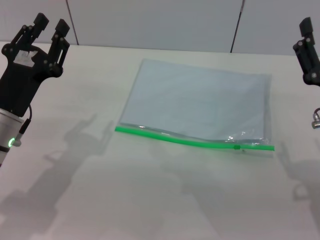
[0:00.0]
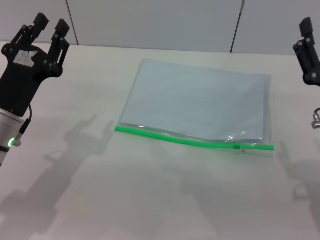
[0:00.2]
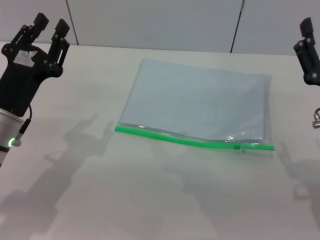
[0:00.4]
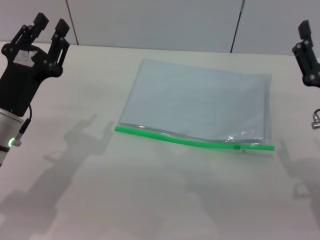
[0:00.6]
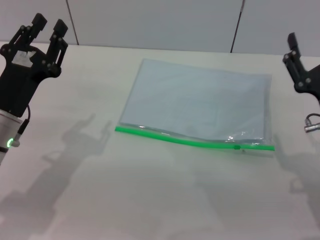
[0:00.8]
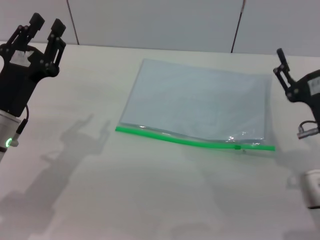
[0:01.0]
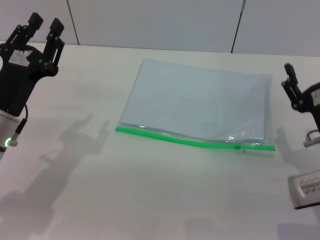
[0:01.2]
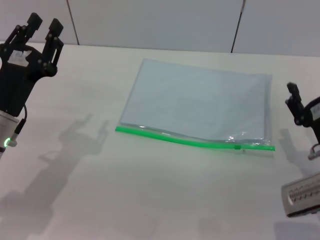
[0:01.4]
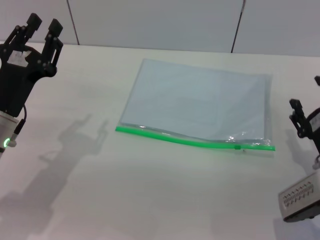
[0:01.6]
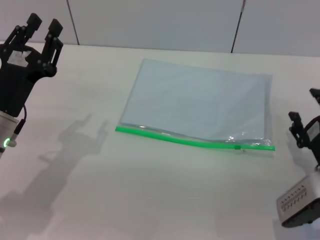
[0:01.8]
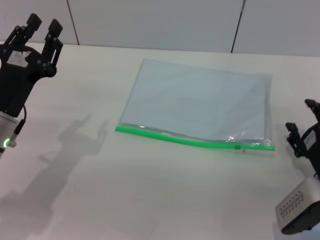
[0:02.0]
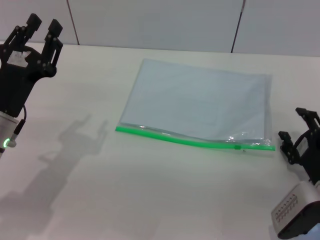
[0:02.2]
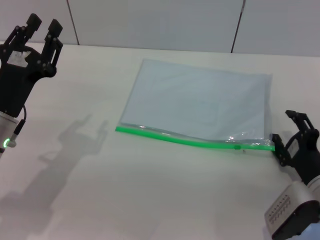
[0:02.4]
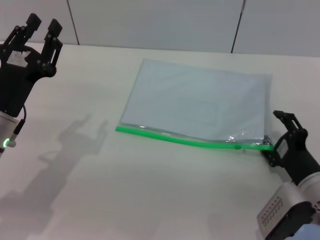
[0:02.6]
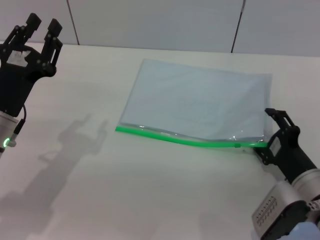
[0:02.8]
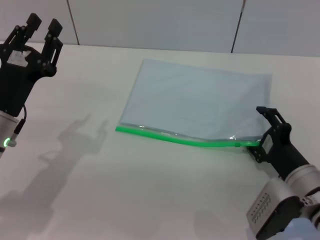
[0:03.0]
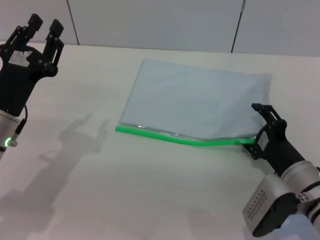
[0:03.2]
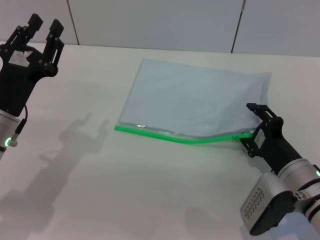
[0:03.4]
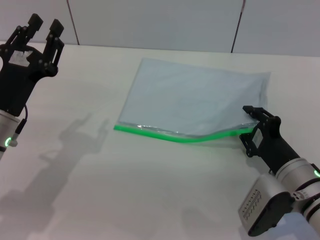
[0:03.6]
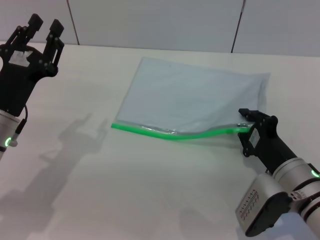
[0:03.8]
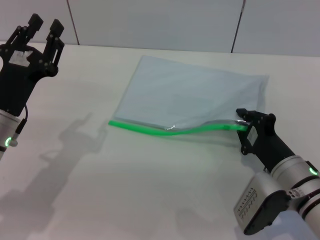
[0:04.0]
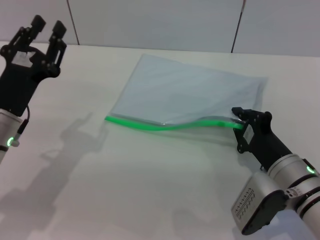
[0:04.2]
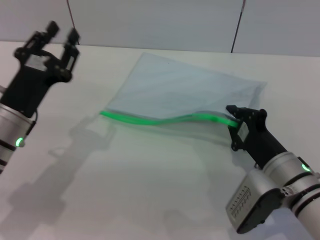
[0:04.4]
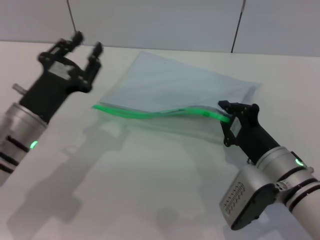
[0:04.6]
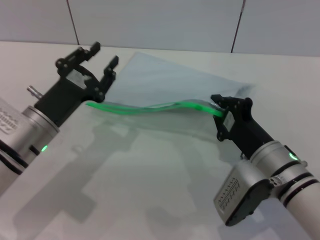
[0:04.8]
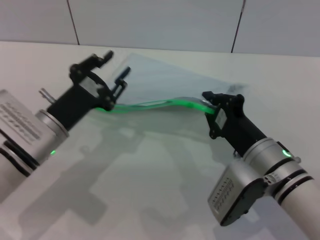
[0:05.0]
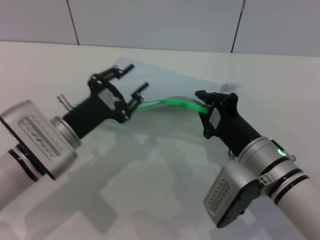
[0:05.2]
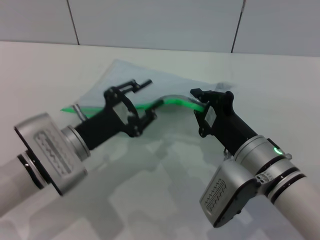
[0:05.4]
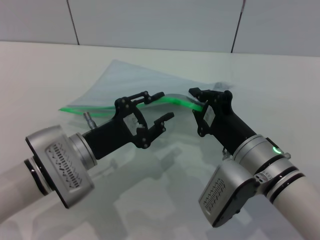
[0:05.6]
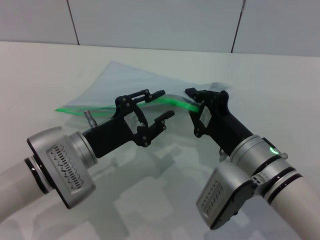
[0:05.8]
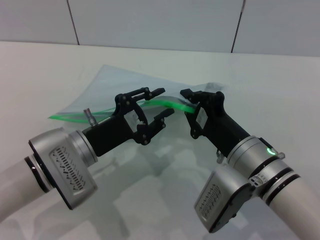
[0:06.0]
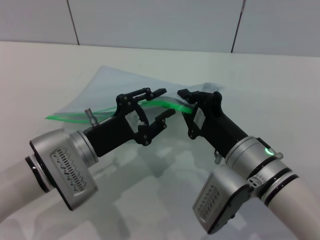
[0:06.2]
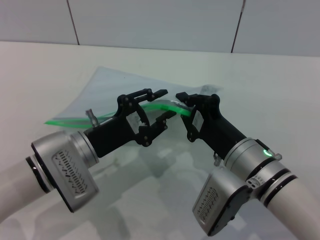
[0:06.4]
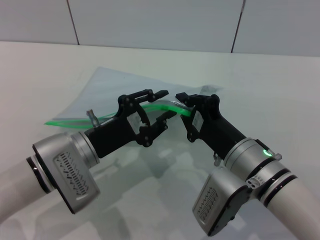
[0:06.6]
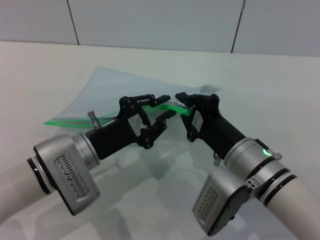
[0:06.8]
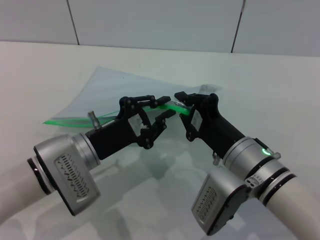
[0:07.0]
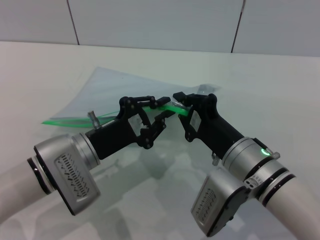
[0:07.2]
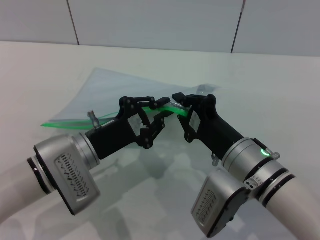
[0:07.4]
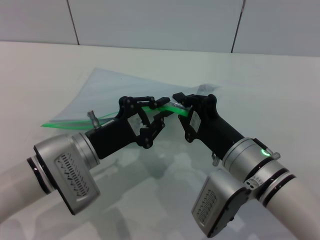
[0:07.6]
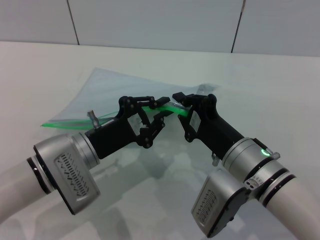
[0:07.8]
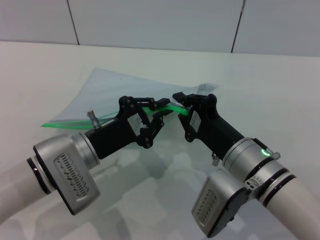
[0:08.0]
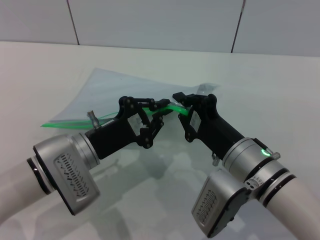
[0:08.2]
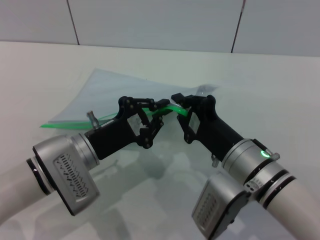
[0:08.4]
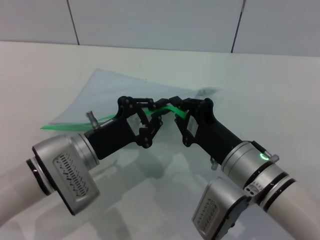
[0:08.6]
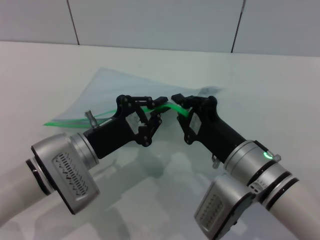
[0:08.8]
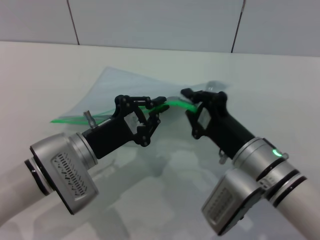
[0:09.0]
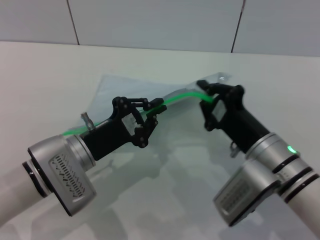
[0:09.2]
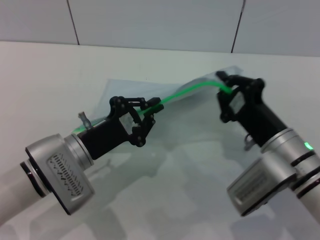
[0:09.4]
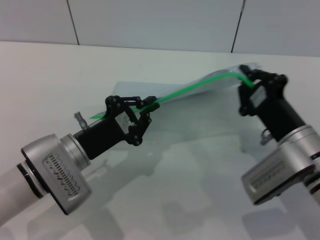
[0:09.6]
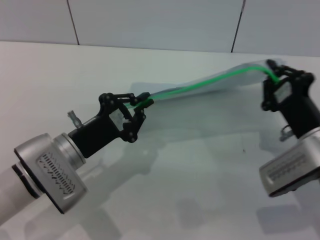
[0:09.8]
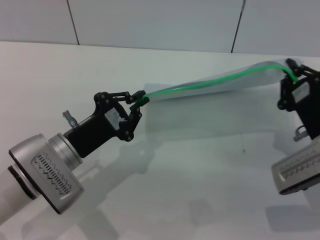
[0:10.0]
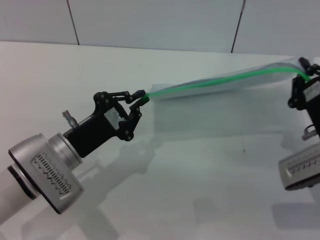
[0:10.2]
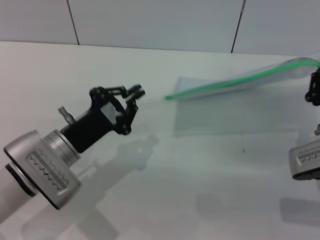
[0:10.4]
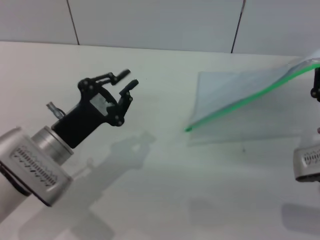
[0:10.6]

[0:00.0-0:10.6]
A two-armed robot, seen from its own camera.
Step, 0:00.0 to 0:04.8: Pick up the transparent plastic bag with the right gripper.
Step, 0:05.0 to 0:10.2: Pulling up the zipper on the transparent plastic bag with the left gripper to close it.
0:00.0 to 0:01.6: The right gripper travels downward by approximately 5 cm.
0:01.6 to 0:03.0: The grippers move only a little.
0:03.0 to 0:04.6: The right gripper ends up approximately 5 cm from where it was, and closes its fingers.
0:04.6 to 0:06.0: The left gripper heads to the right, covering about 5 cm.
0:06.0 to 0:07.6: The left gripper closes up.
0:07.6 to 0:09.0: The two grippers keep their place.
0:09.0 to 0:10.6: The right gripper shifts some 10 cm to the right.

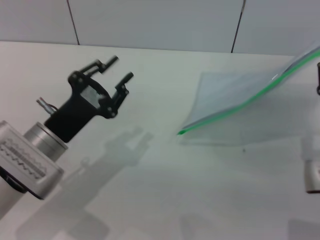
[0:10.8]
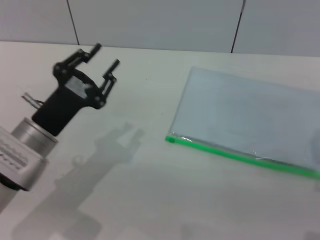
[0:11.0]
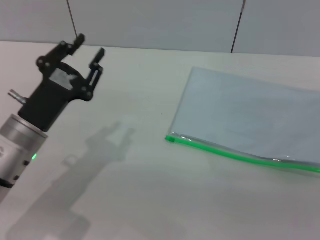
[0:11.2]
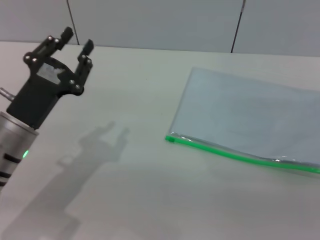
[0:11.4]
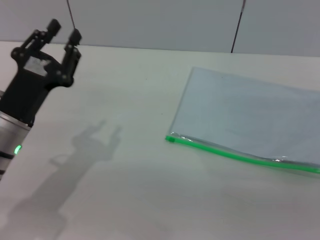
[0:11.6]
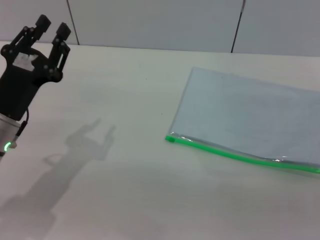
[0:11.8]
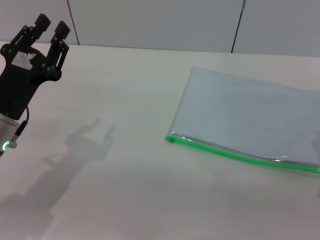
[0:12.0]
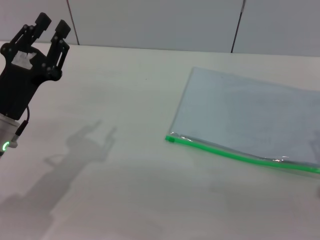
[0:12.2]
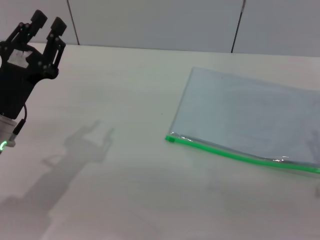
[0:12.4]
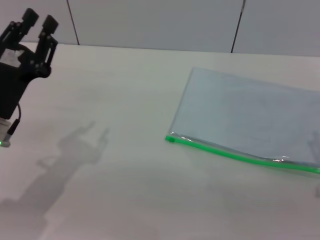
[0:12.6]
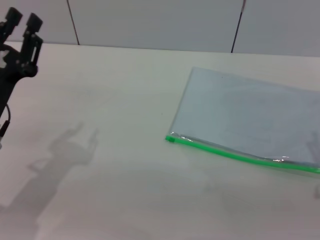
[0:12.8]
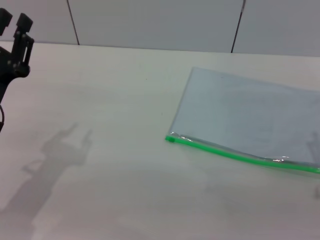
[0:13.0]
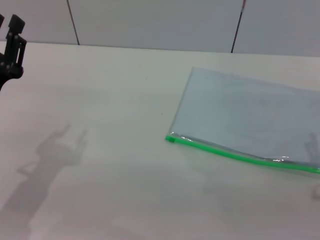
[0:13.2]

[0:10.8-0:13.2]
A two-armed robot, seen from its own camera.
0:10.8 to 0:12.0: The right gripper opens. Meanwhile the left gripper changes place by roughly 5 cm, and opens up.
0:12.0 to 0:13.2: There are only small adjustments of the grippers.
